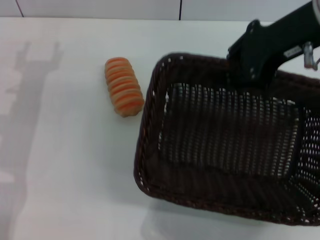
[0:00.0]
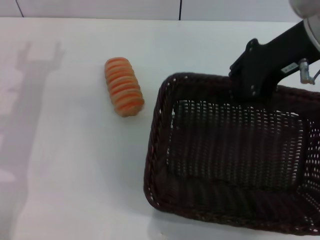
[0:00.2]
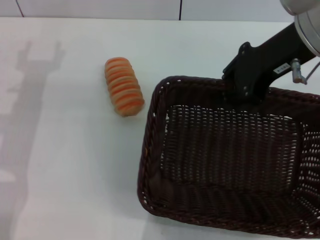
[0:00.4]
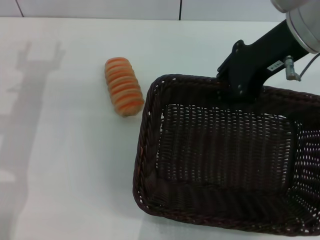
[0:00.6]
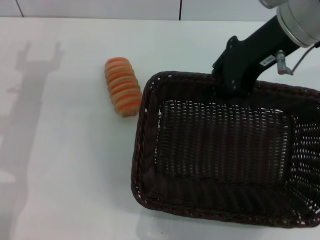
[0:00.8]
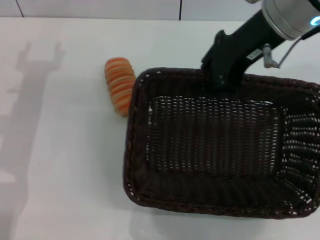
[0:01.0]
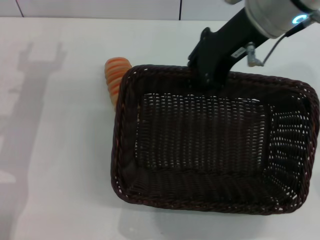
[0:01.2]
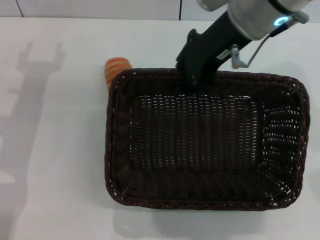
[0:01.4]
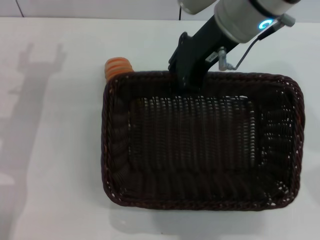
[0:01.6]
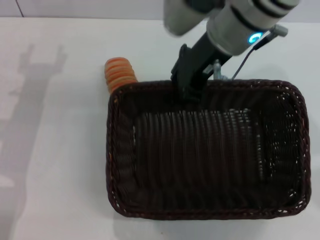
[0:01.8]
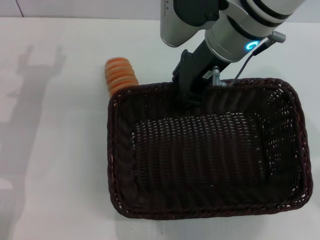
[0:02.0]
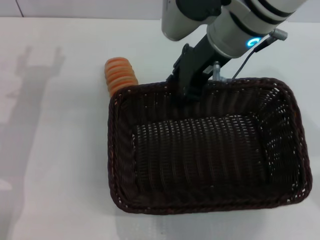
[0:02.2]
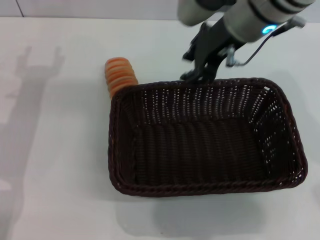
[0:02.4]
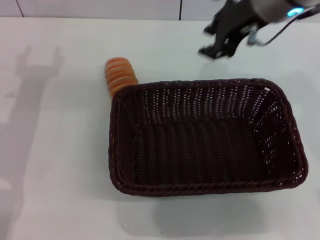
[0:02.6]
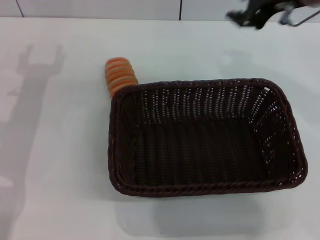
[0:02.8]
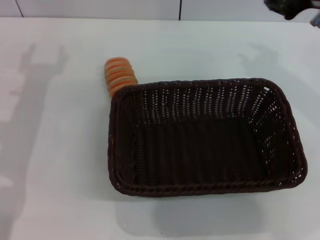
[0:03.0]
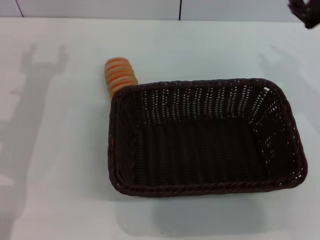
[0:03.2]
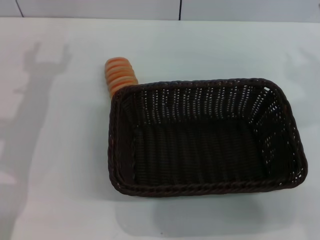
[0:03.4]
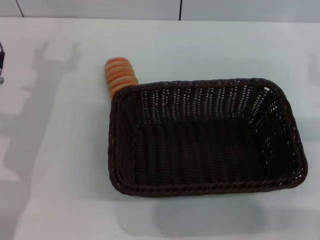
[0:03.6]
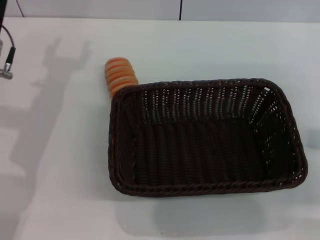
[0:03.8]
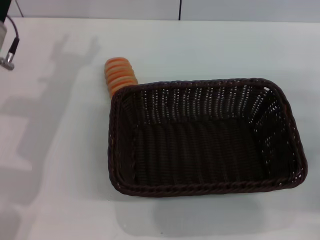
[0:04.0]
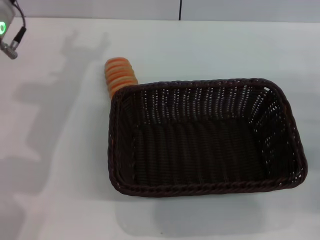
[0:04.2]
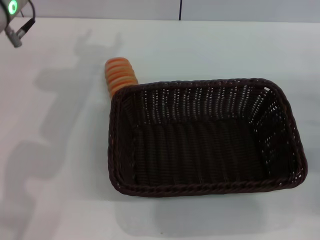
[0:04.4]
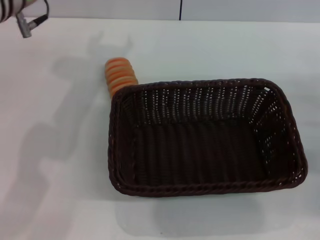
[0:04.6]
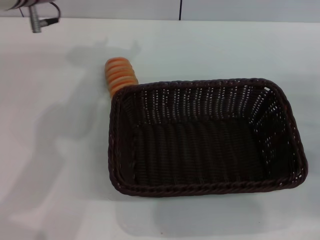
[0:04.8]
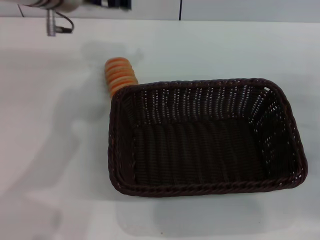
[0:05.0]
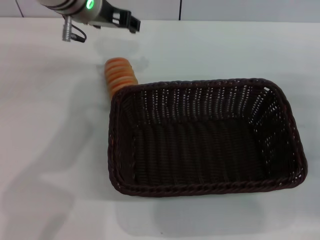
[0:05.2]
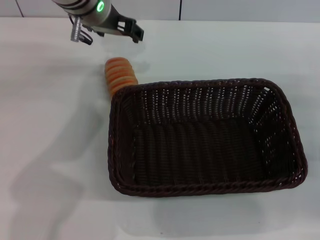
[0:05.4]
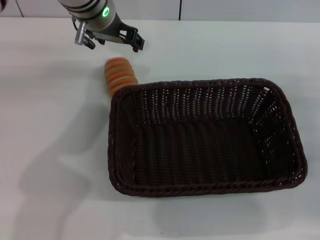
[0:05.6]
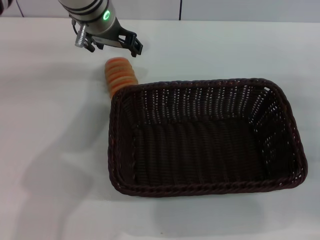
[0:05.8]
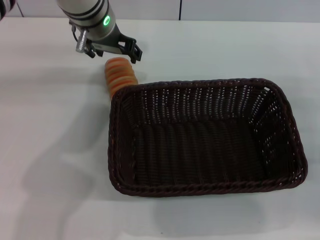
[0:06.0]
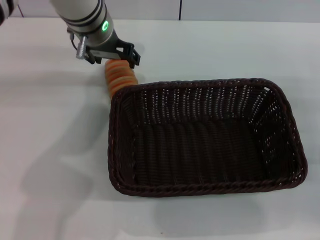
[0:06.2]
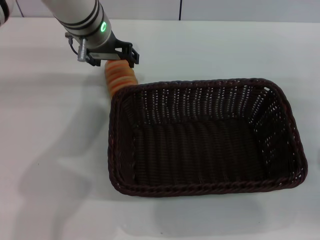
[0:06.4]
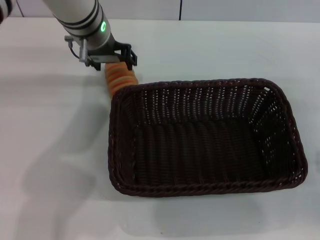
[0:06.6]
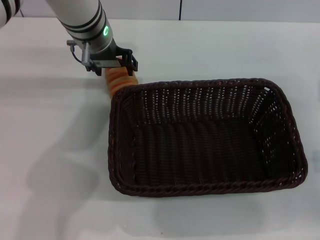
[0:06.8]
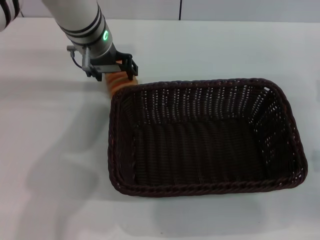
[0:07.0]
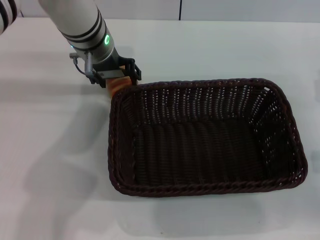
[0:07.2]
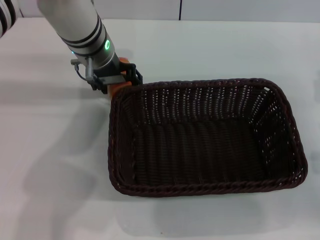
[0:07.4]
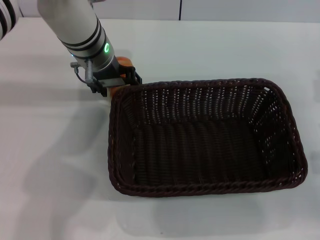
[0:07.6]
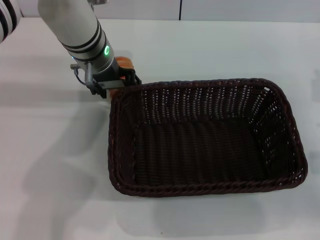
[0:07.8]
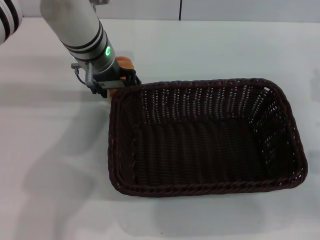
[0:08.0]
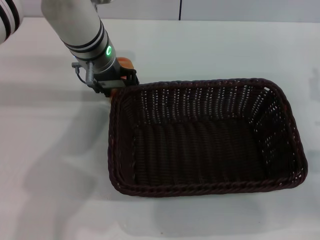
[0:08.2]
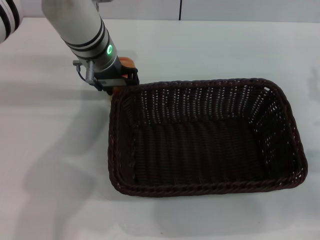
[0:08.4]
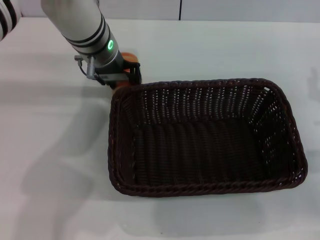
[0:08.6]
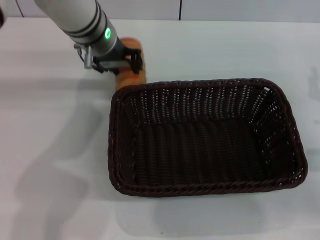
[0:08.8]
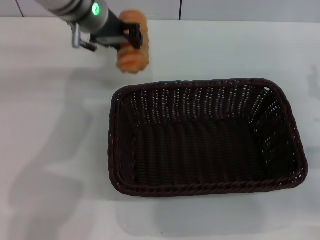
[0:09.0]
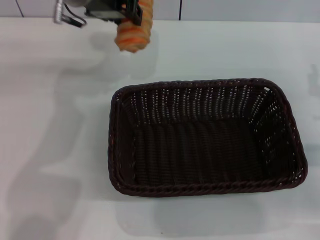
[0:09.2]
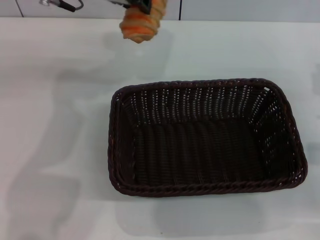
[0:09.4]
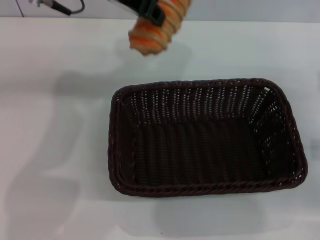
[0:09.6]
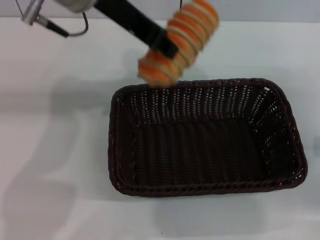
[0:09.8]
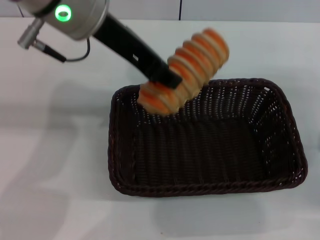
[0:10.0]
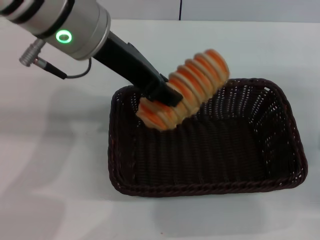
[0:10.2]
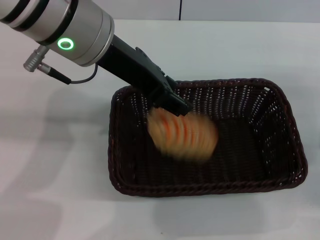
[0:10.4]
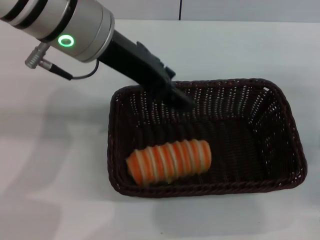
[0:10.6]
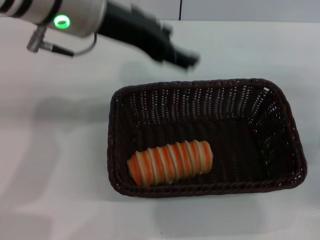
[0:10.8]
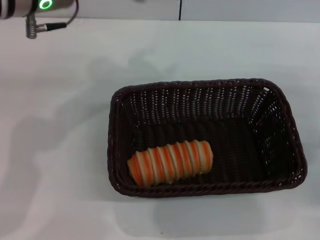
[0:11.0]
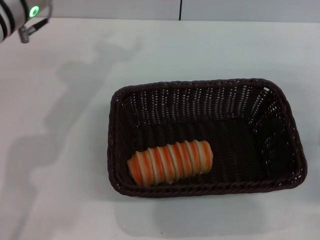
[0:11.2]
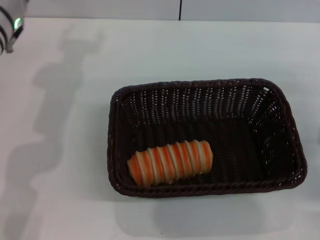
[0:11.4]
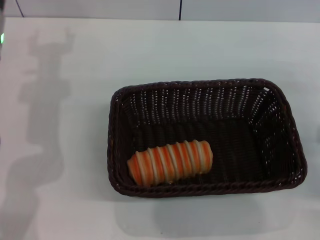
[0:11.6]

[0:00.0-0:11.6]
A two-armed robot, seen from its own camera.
Step, 0:02.6 to 0:09.0: Pick up the long bread with the right gripper.
Step, 0:09.2 to 0:10.4: Place the long bread into the dark basket with the right gripper.
0:00.0 to 0:01.4: The right gripper shifts approximately 10 cm to the left.
0:01.4 to 0:02.8: The right gripper heads to the right, covering some 10 cm, and opens its fingers.
0:02.8 to 0:04.4: The right gripper goes about 25 cm downward, to the right and backward; the left gripper is displaced upward and to the right by about 15 cm.
0:04.4 to 0:05.8: The left gripper goes about 15 cm forward and to the right.
0:05.8 to 0:07.2: The grippers make only small movements.
0:07.2 to 0:08.8: The left gripper closes its fingers.
0:08.8 to 0:10.2: The left gripper goes about 15 cm upward and backward.
0:10.2 to 0:11.6: The left gripper travels downward and to the left by roughly 15 cm, and opens.
